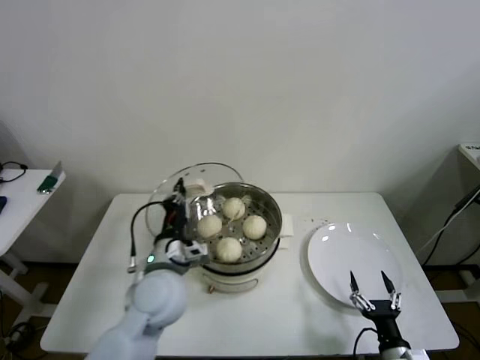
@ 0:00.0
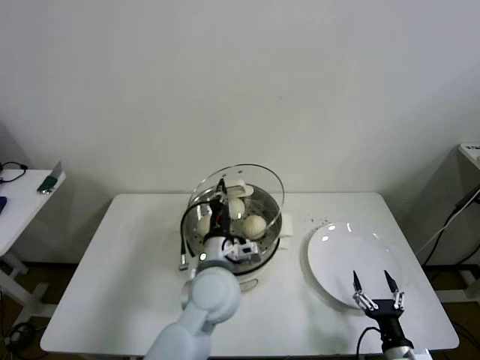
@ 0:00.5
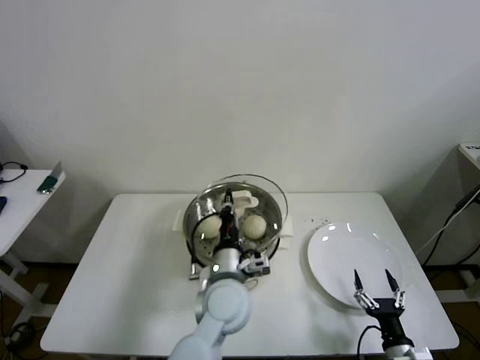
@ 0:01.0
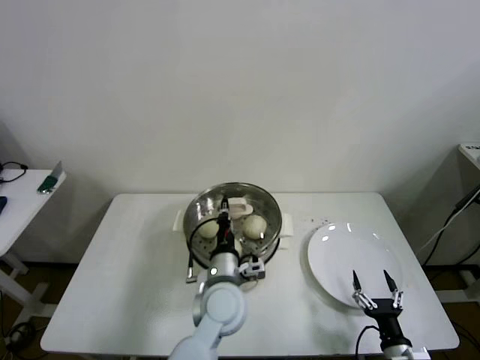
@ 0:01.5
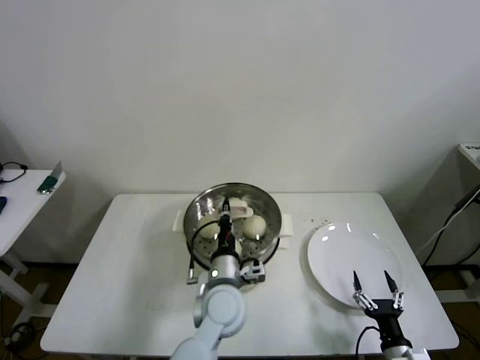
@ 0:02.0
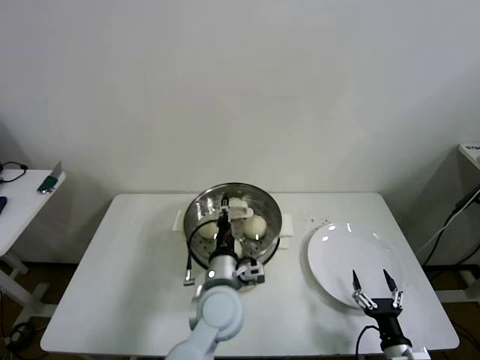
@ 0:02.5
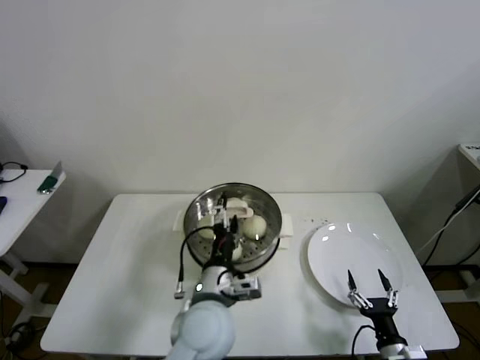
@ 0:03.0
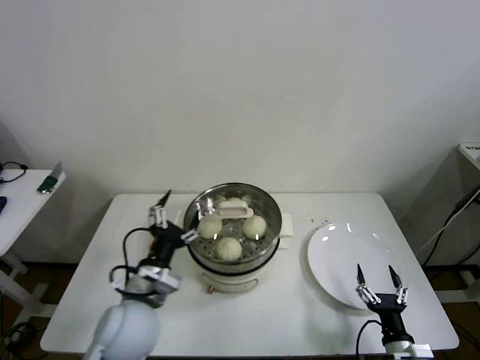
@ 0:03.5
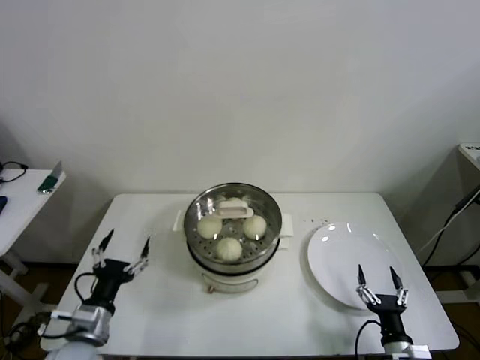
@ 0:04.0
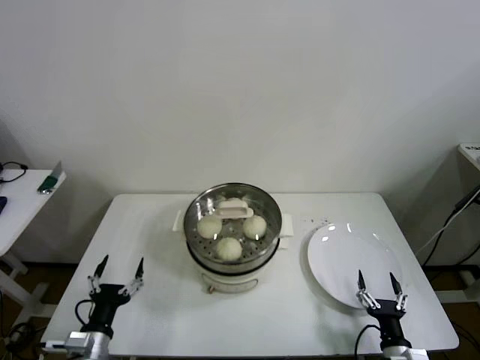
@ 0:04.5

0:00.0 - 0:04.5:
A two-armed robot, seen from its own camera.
Step, 0:00.0 - 0:03.0: Place the pot lid on the steamer with left gripper.
0:00.0 - 0:02.0: The left gripper moves to the right and downward, roughly 15 cm.
0:02.0 - 0:04.5: The left gripper shifts roughly 30 cm to the left and backward, and opens its fingers.

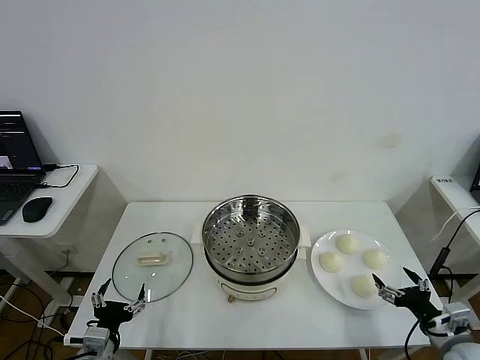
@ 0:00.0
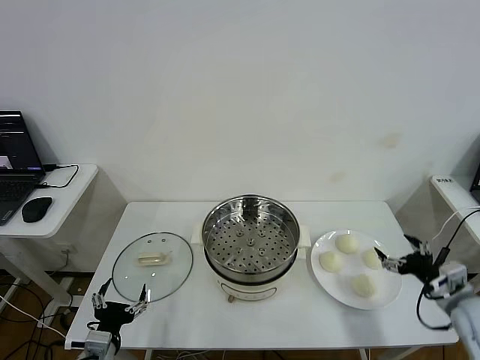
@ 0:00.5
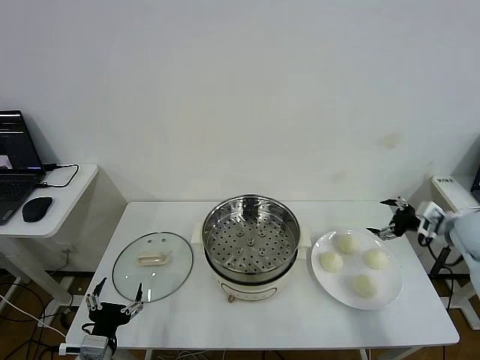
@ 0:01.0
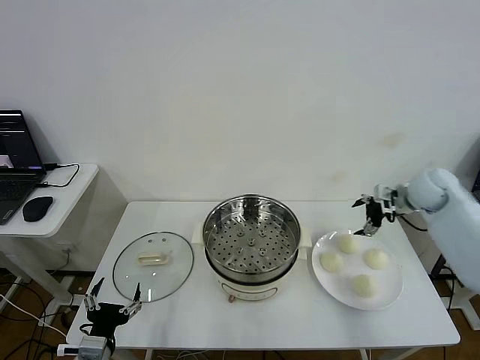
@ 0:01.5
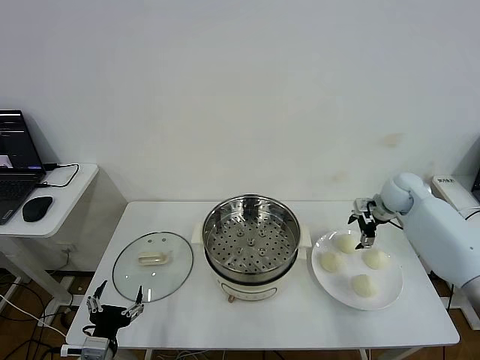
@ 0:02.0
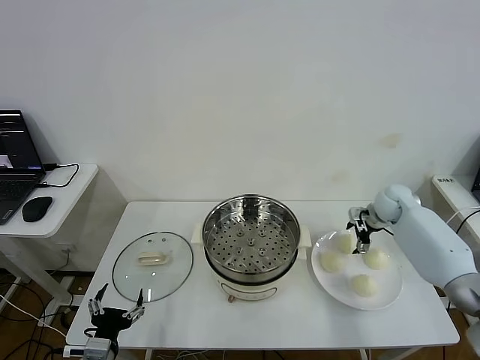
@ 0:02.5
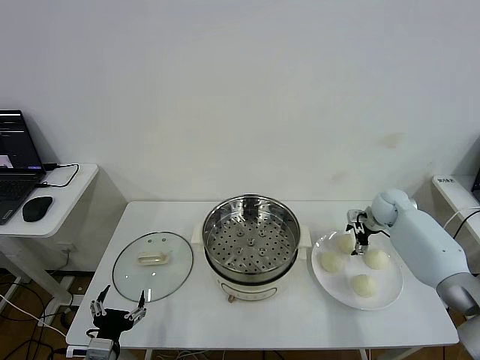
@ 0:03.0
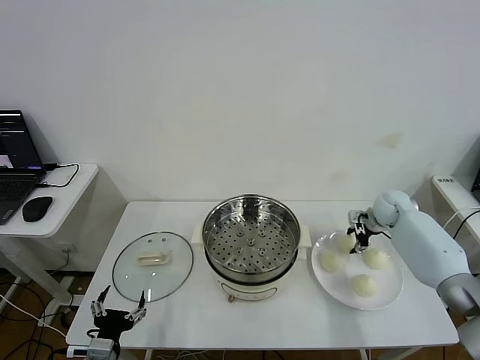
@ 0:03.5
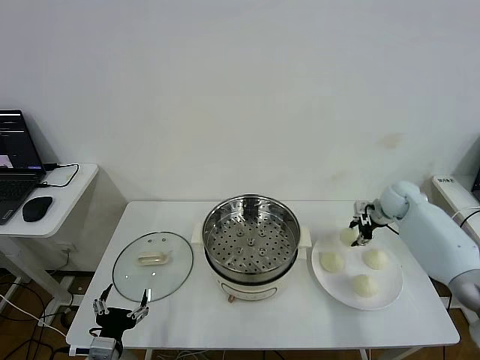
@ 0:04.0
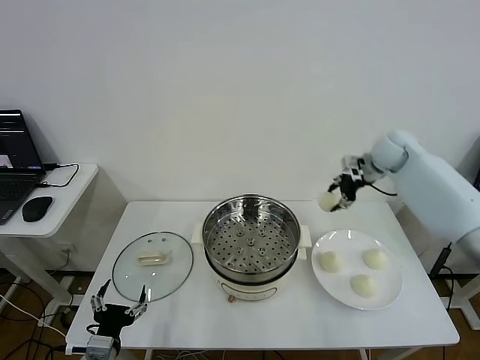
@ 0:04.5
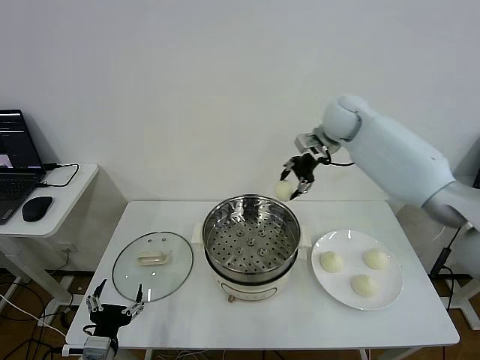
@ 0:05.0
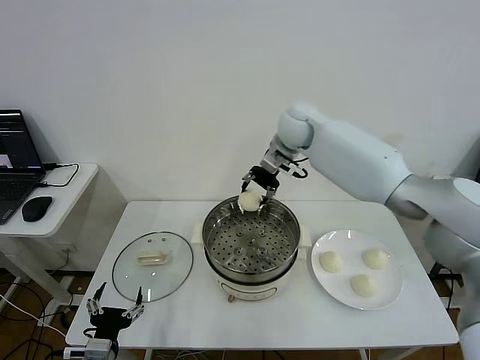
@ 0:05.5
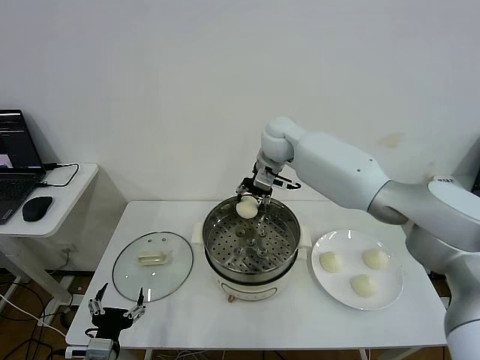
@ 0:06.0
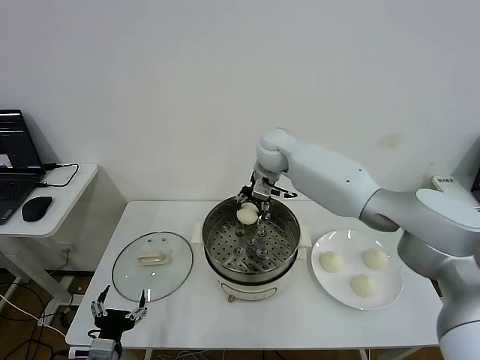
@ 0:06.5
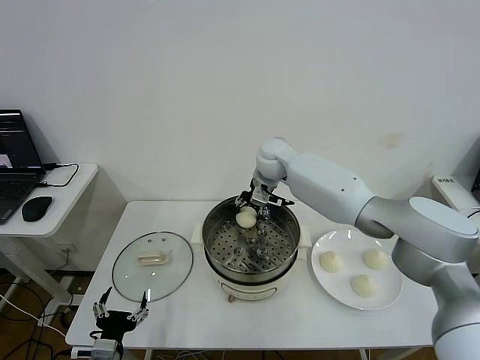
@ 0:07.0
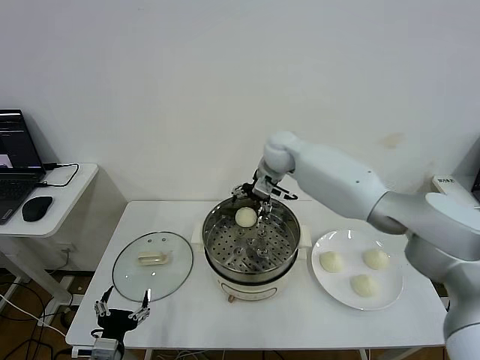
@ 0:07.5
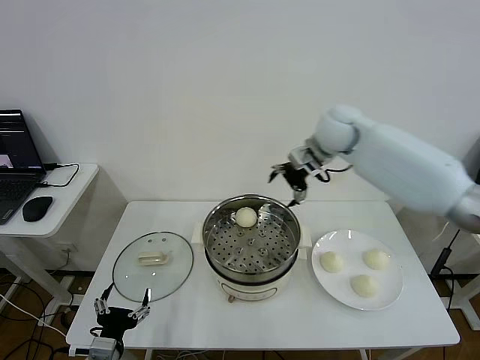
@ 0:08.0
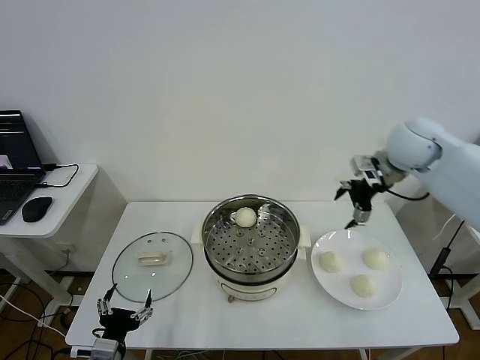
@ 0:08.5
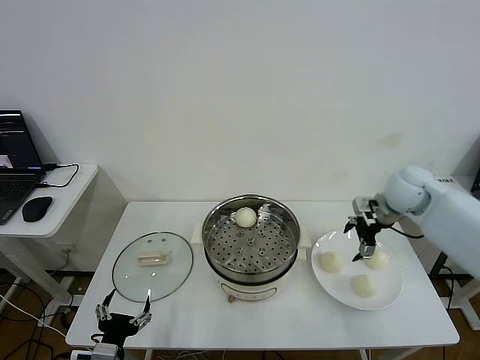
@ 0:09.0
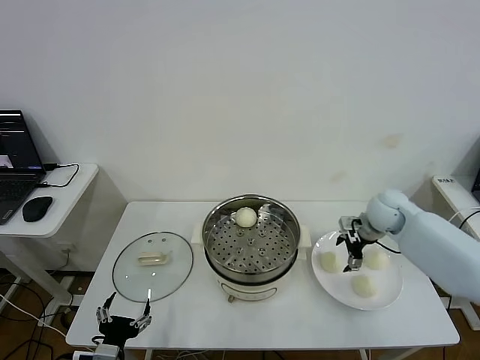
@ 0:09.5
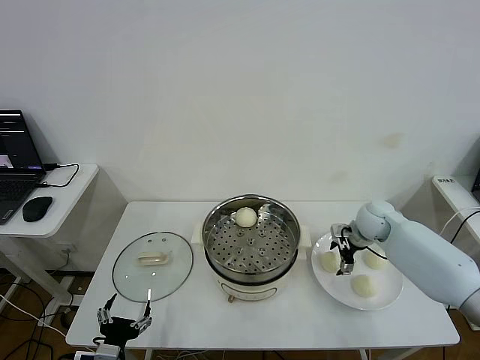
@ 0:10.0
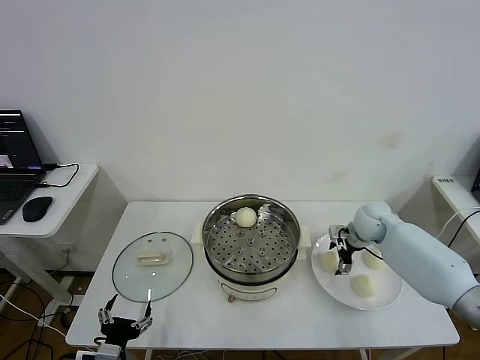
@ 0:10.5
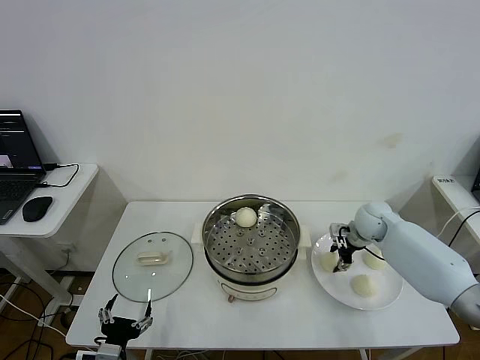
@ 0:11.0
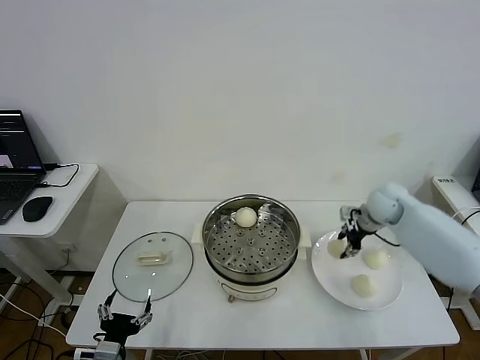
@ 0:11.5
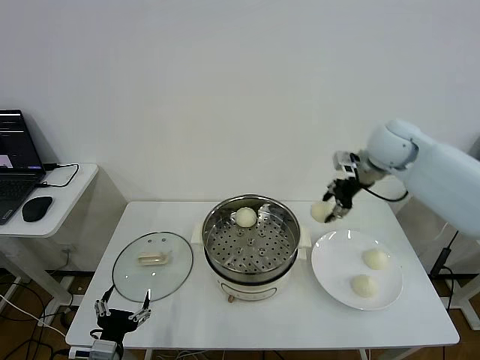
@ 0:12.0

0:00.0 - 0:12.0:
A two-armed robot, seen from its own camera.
Step, 0:00.0 - 0:03.5: Grasp the baozi in the plate with right gripper.
Step, 0:04.0 - 0:07.0: Place the baozi on the steamer with right gripper.
Step, 0:07.5 - 0:11.0: Grasp the baozi in the plate with right gripper.
0:02.0 - 0:04.0: The right gripper closes its fingers.
0:04.0 - 0:06.0: The right gripper shifts about 35 cm to the left.
0:06.0 - 0:08.0: The right gripper is displaced to the right by roughly 15 cm, and opens up.
0:08.0 - 0:10.0: The right gripper is displaced downward and to the right by approximately 25 cm.
0:10.0 - 0:12.0: The right gripper travels upward by some 25 cm, and closes.

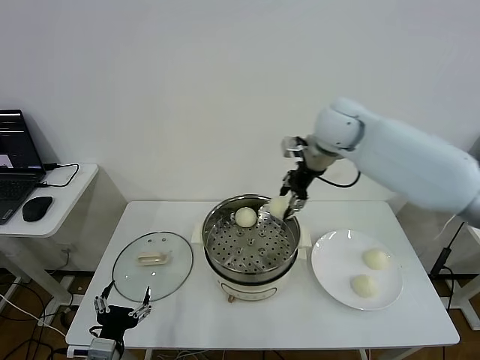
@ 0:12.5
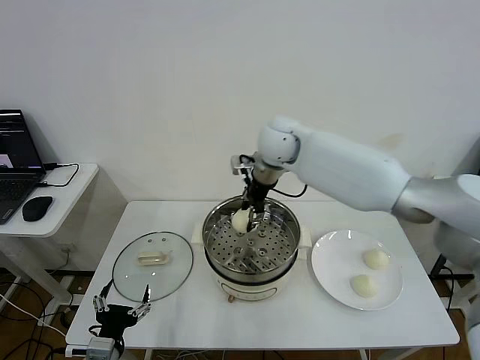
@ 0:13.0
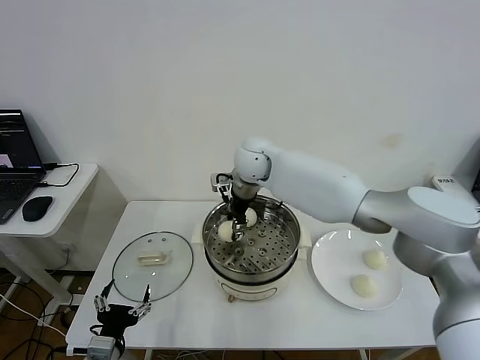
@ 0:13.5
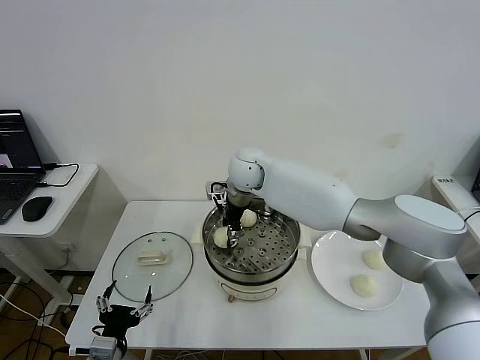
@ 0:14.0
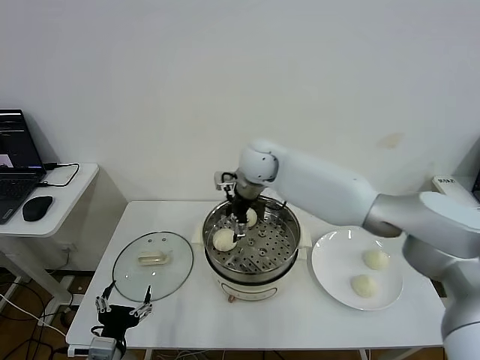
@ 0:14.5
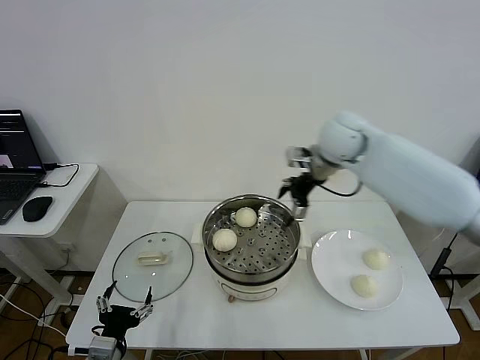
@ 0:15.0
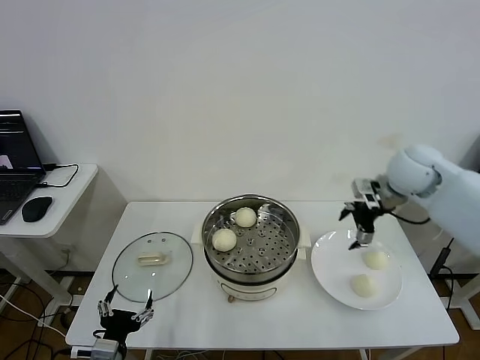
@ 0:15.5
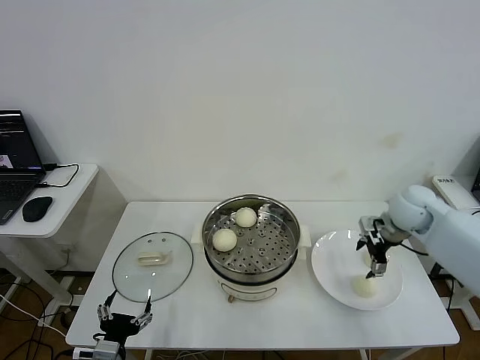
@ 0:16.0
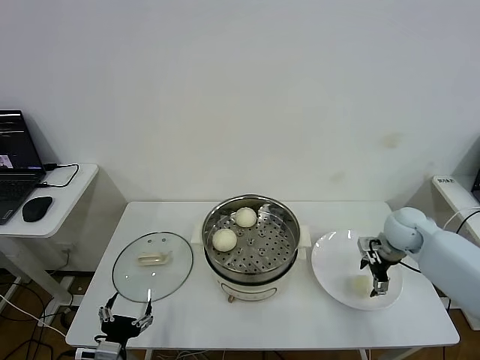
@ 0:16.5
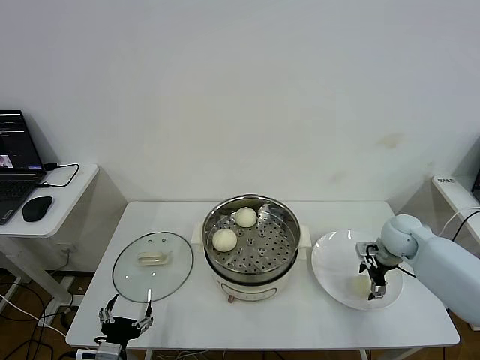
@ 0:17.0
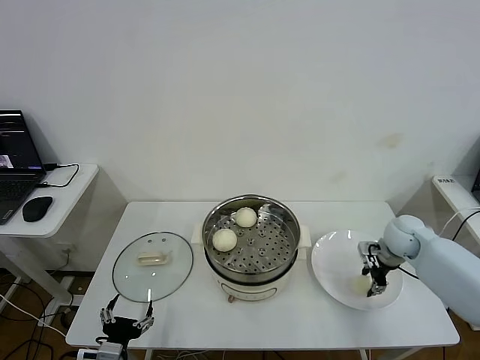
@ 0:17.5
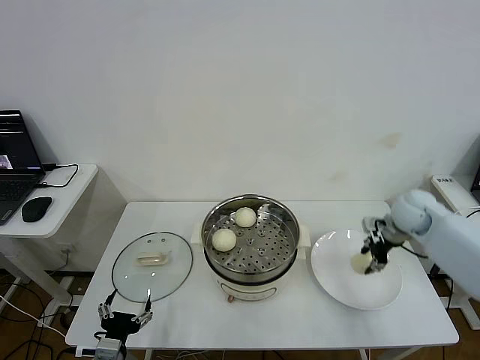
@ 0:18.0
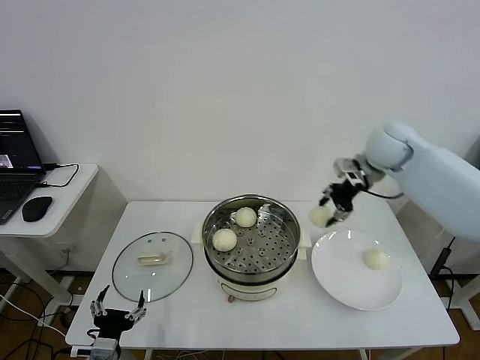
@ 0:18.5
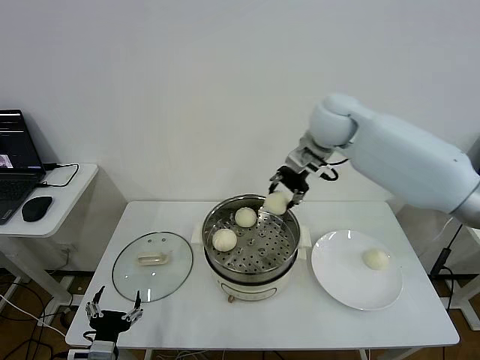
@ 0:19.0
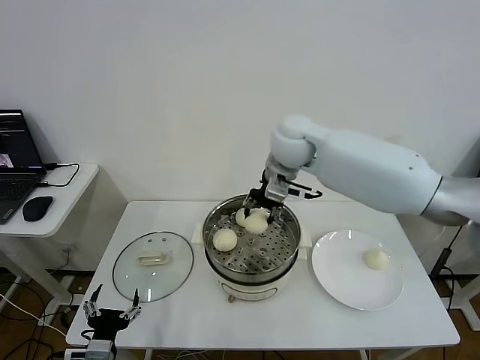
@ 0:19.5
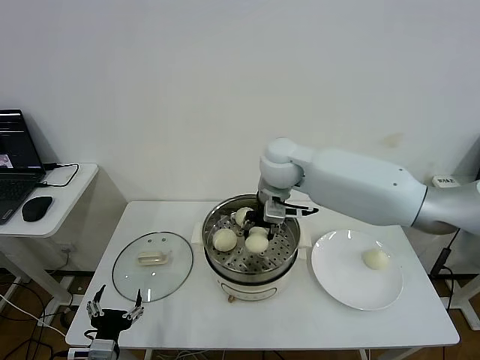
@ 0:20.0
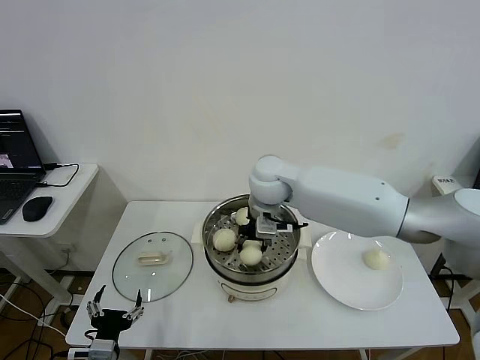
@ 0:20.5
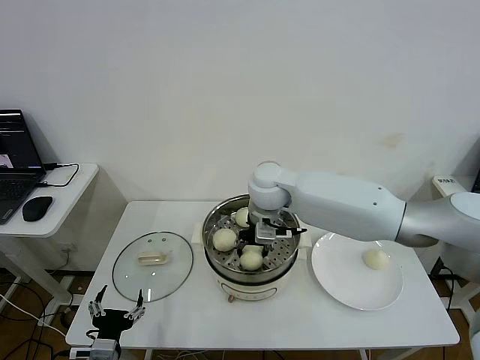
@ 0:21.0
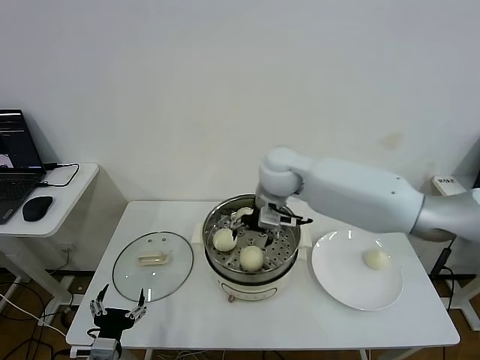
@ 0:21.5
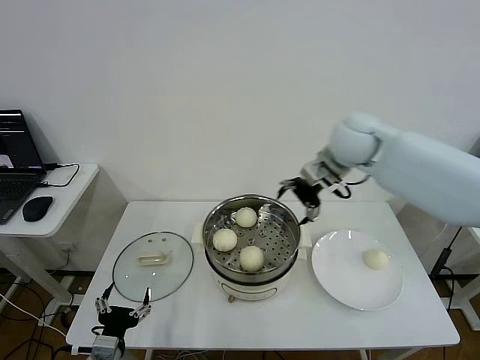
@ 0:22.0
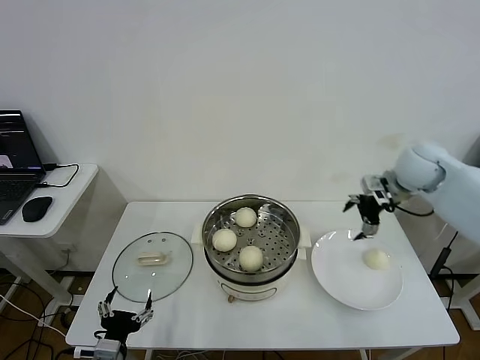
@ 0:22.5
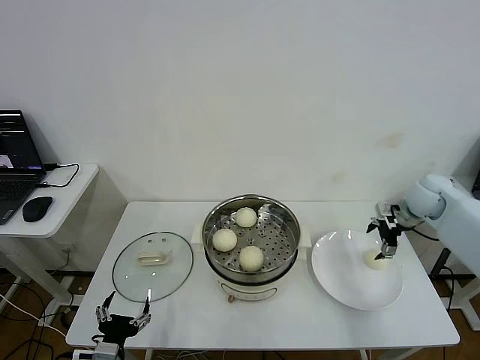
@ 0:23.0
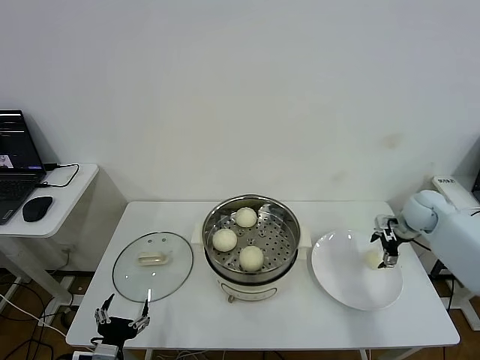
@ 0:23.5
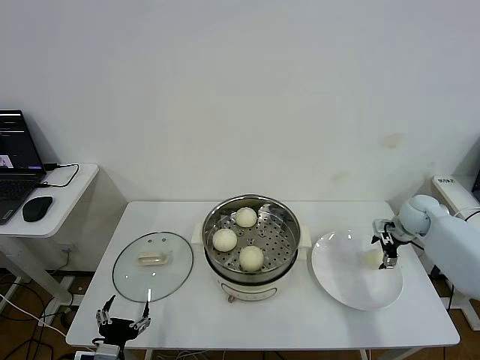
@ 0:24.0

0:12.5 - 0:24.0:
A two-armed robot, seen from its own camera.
Step, 0:14.5 - 0:17.5: Grasp the baozi in the plate with right gripper.
Step, 0:18.0 - 0:21.0: Place the baozi on the steamer with right gripper.
0:12.5 - 0:14.5: The right gripper shifts some 15 cm to the left and downward, and opens.
0:14.5 - 0:16.5: The right gripper heads to the right and downward, covering roughly 35 cm.
0:16.5 - 0:18.5: The right gripper moves upward, to the left and forward, roughly 20 cm, and closes its fingers.
0:18.5 - 0:20.0: The right gripper shifts approximately 20 cm to the left.
0:20.0 - 0:22.0: The right gripper goes roughly 15 cm to the right, and opens its fingers.
0:22.0 - 0:24.0: The right gripper heads to the right and downward, covering roughly 30 cm.
